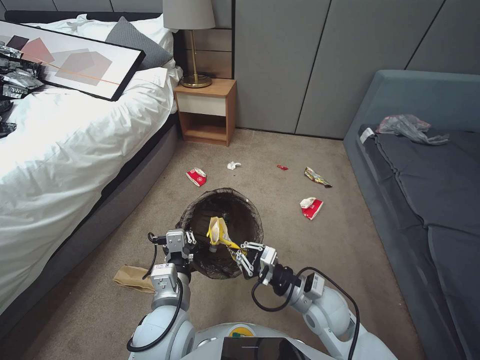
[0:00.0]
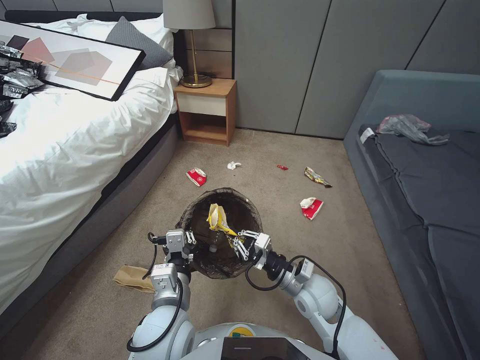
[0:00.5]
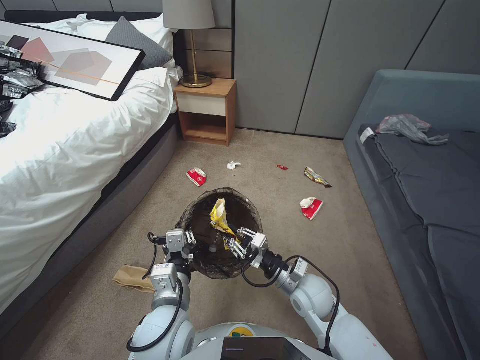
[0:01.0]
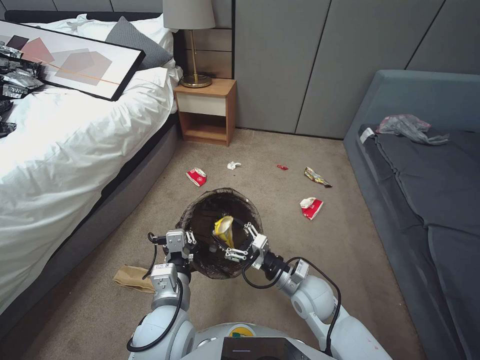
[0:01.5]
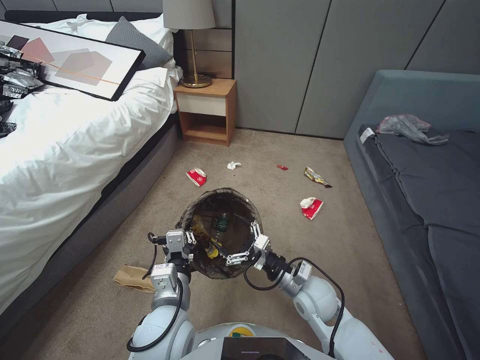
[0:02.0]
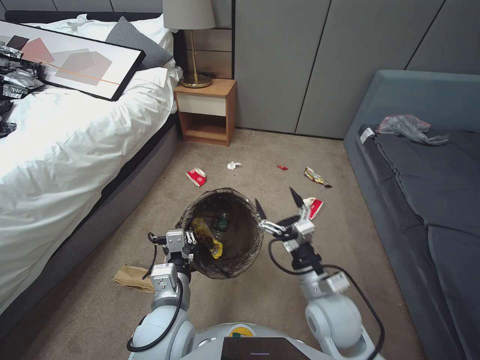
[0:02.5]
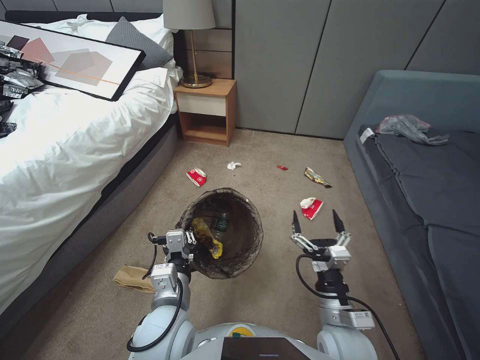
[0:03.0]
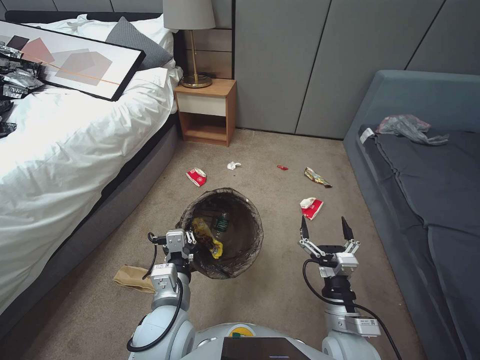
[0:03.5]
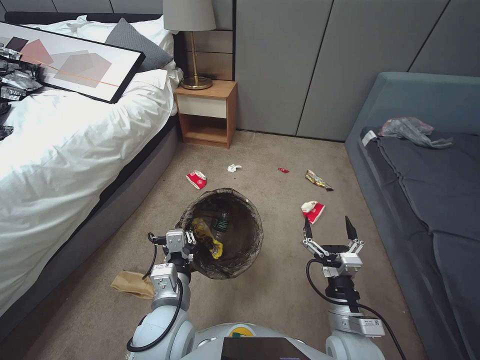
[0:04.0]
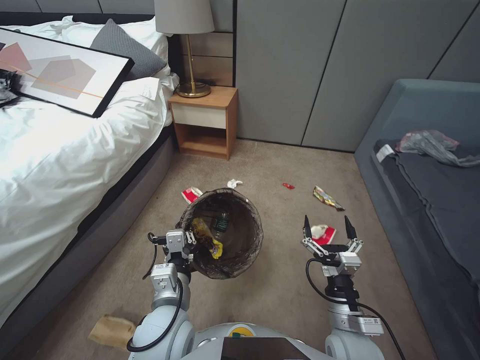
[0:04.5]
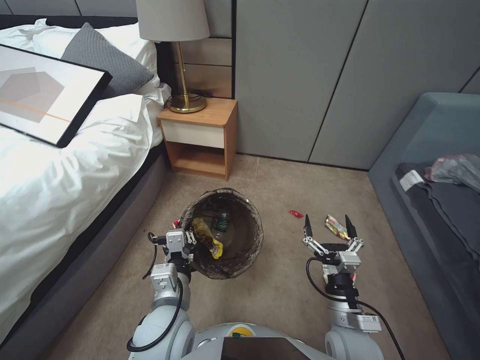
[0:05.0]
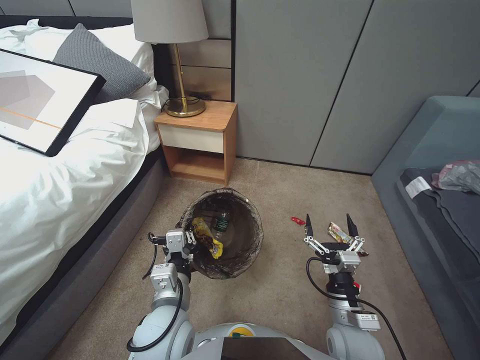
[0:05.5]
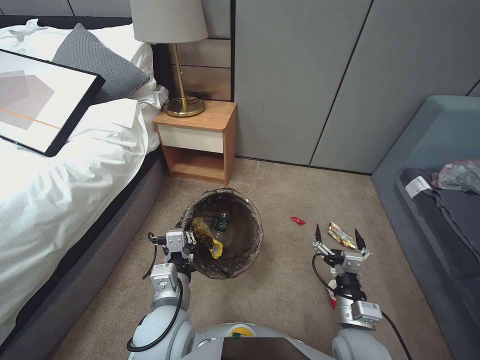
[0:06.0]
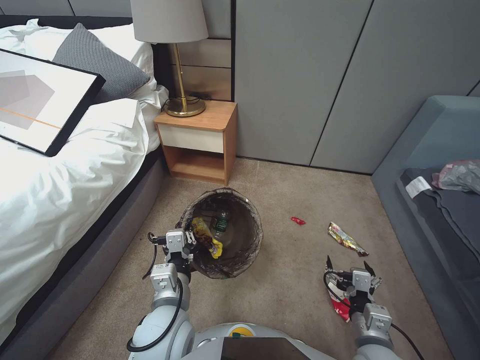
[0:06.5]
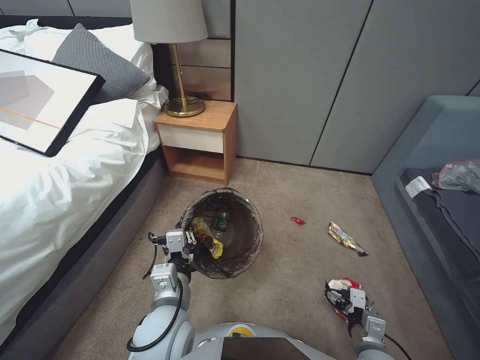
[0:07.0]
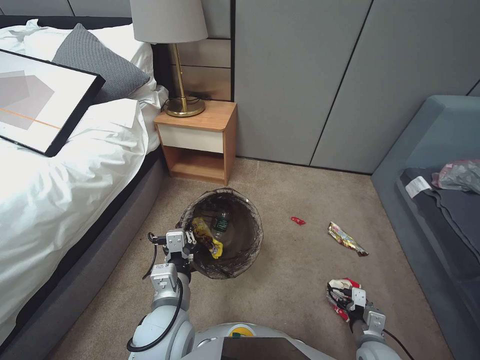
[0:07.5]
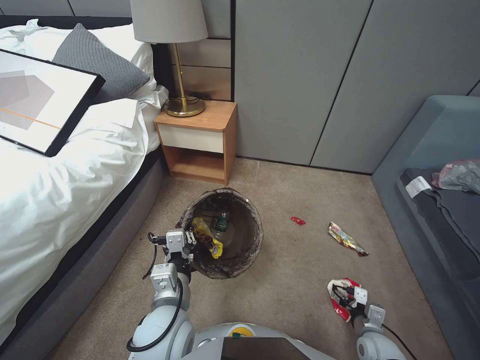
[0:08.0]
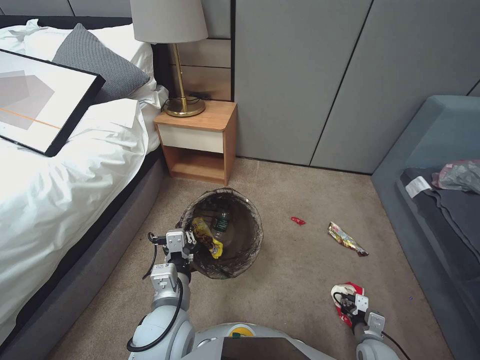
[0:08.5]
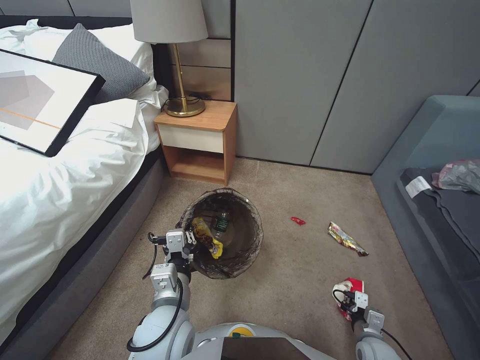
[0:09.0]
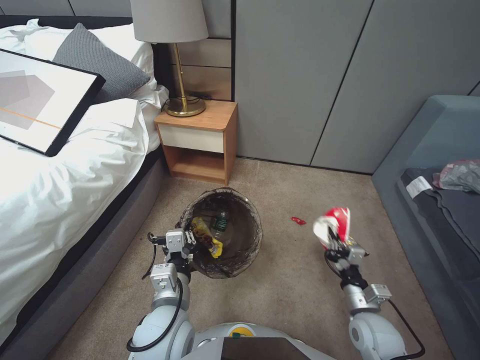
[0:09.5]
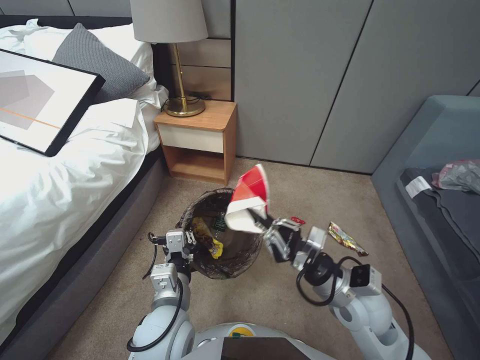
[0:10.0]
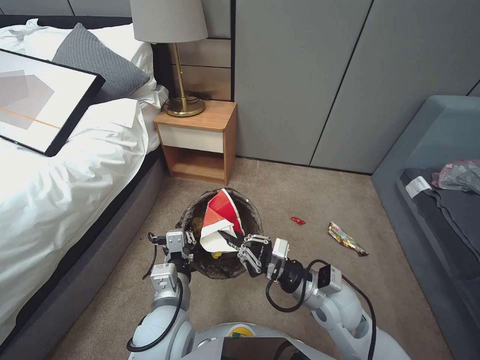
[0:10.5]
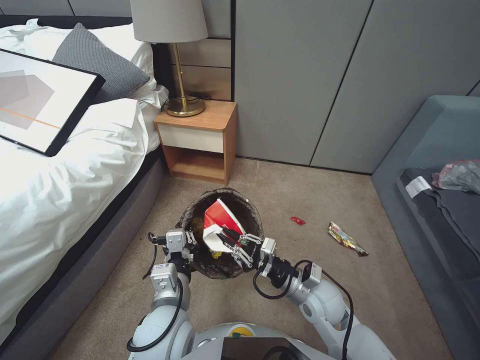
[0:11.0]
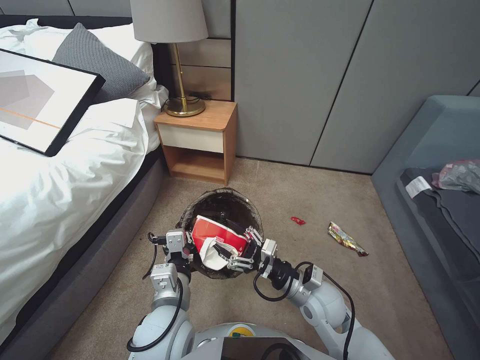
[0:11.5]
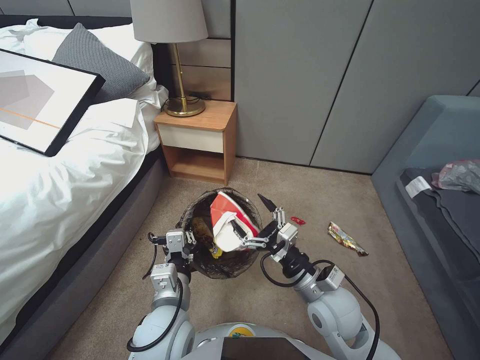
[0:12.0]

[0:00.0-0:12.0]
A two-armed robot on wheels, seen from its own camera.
Task of the whole recording: Pick up the trash bin, then pick up the garbage from the floor and place it into the trash bin.
0:00.0 to 0:02.0: The right gripper shifts by about 5 cm, and opens its fingers.
0:02.0 to 0:04.0: The right gripper moves backward, roughly 10 cm.
0:06.0 to 0:08.0: The right gripper shifts some 20 cm downward and to the right.
0:08.0 to 0:10.0: The right gripper moves upward and to the left, roughly 25 cm, and closes its fingers.
0:10.0 to 0:12.0: The right gripper is displaced to the left by some 5 cm, and opens up.

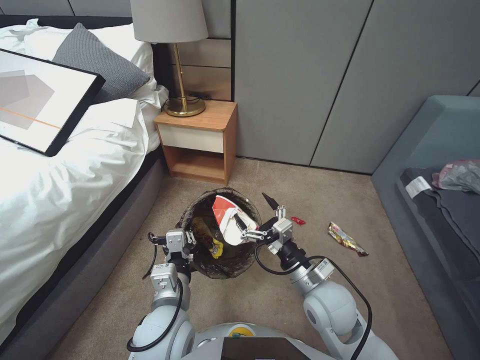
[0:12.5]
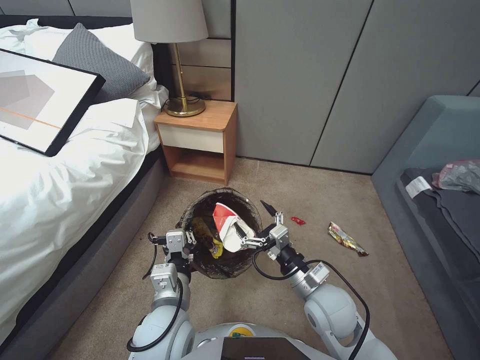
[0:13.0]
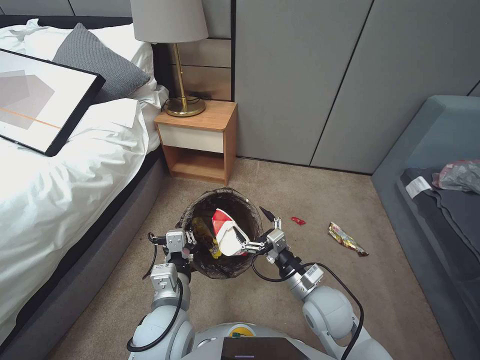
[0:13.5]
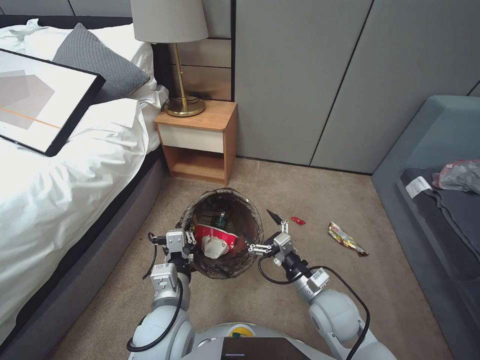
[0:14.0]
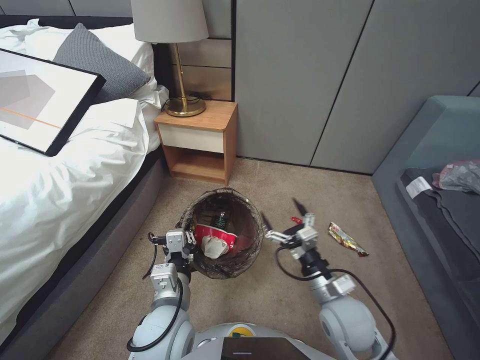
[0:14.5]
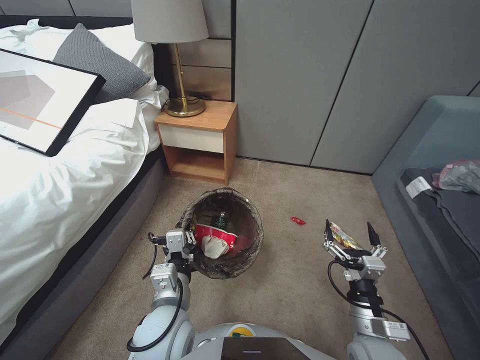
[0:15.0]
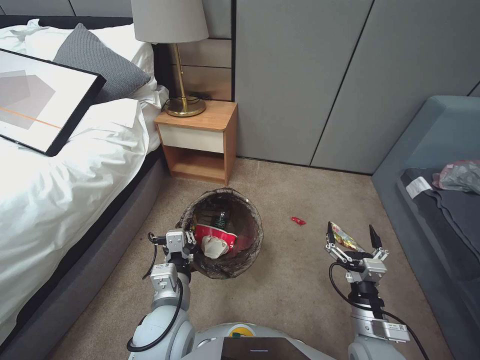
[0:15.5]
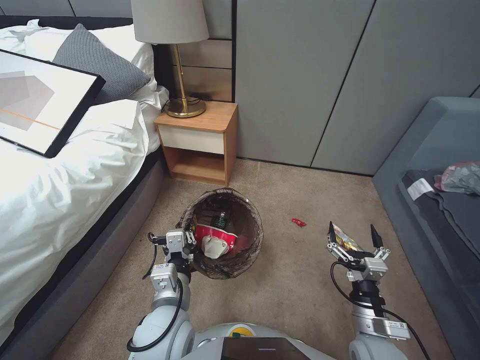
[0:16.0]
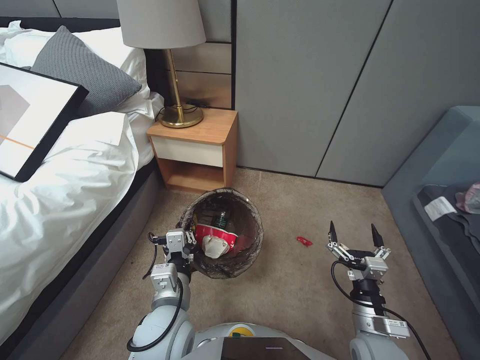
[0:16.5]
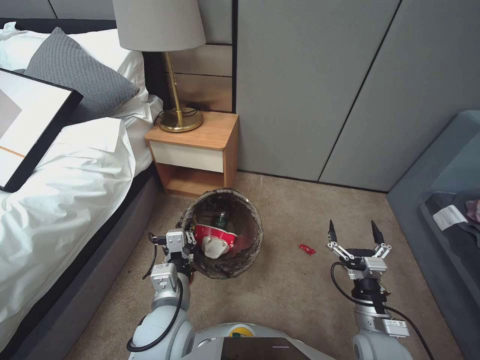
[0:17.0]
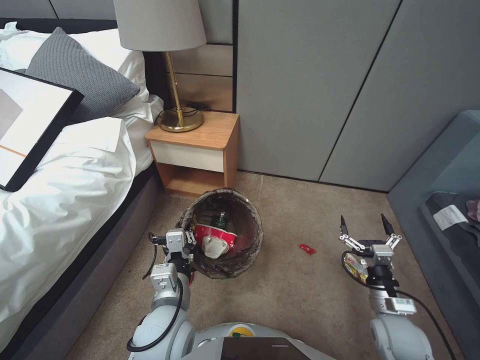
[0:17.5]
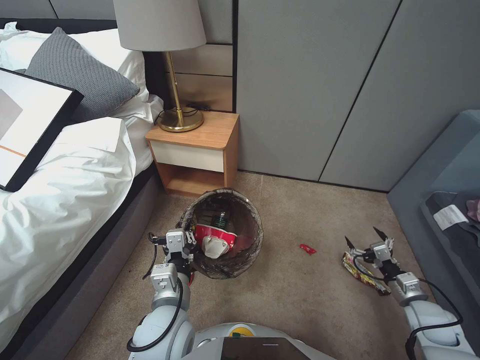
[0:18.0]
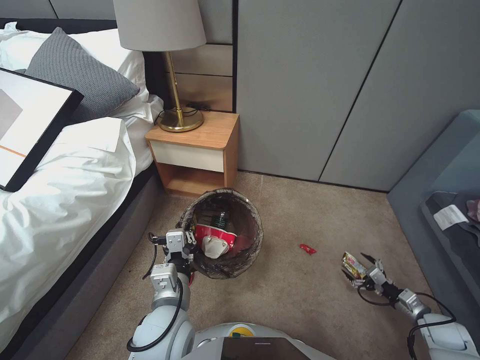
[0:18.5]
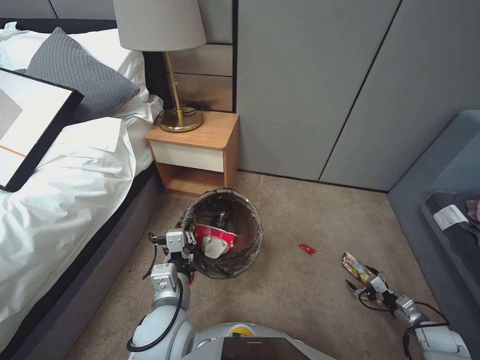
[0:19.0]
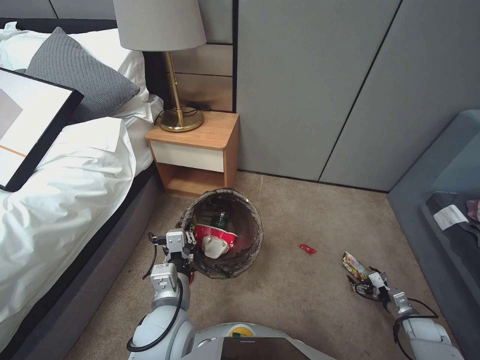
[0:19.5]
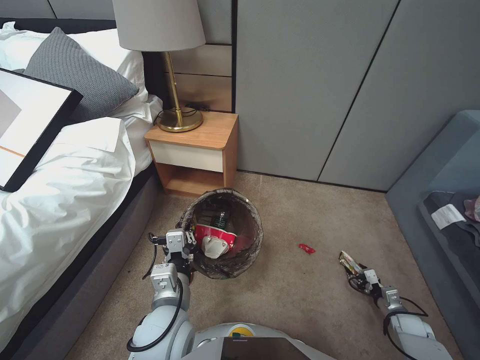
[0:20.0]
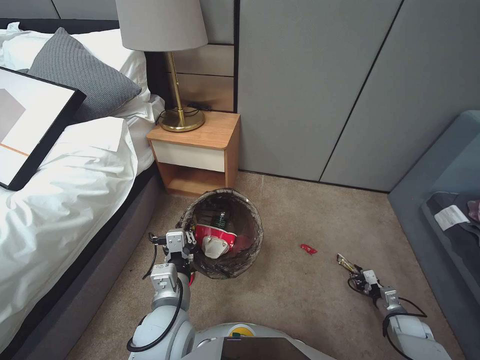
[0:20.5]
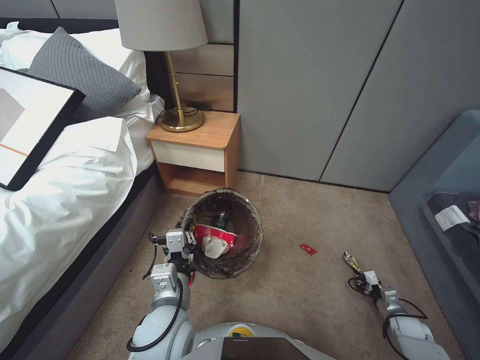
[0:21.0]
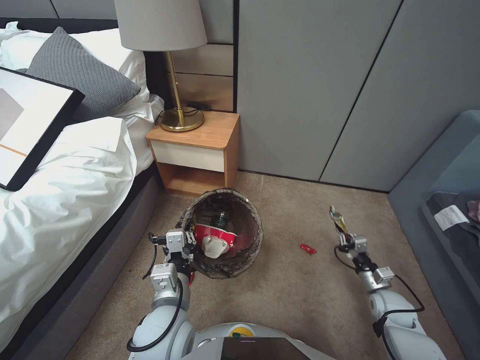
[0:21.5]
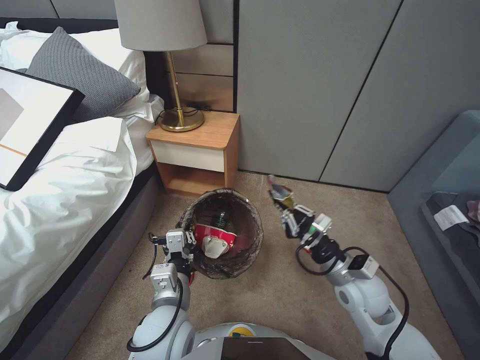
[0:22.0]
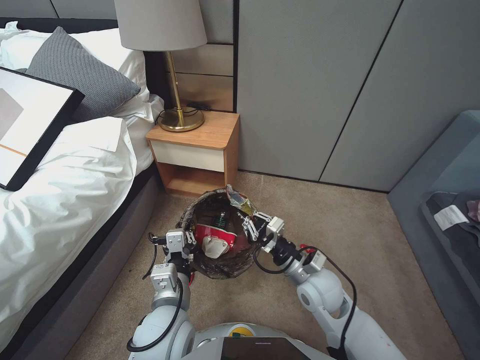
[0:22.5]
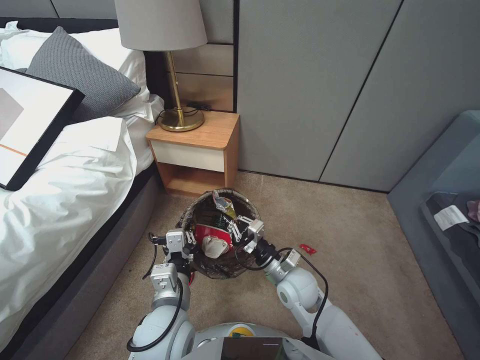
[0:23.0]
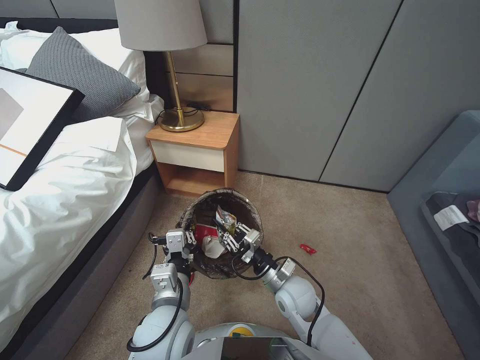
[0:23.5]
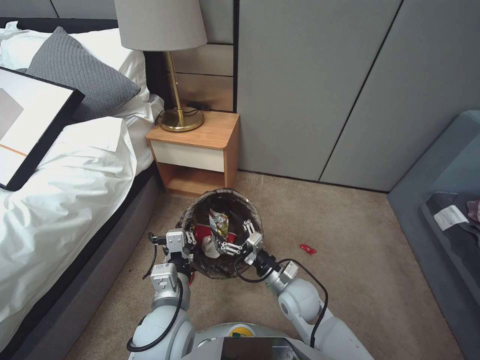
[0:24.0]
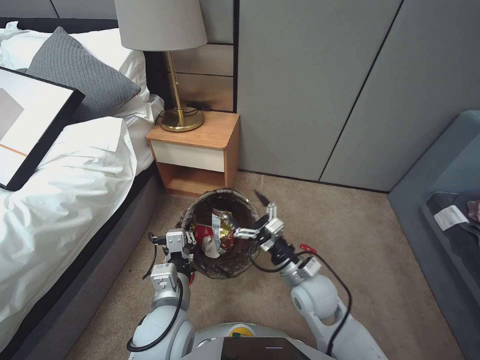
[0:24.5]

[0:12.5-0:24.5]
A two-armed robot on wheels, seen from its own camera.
Task of the whole recording: Pick up the trash bin, then pick up the garbage from the floor and place it into the trash bin.
0:12.5 to 0:14.5: The right gripper changes place by roughly 5 cm.
0:14.5 to 0:16.5: The right gripper is displaced to the right and backward by roughly 10 cm.
0:16.5 to 0:18.5: The right gripper goes some 25 cm to the right.
0:18.5 to 0:20.5: The right gripper travels downward by roughly 10 cm, and closes its fingers.
0:20.5 to 0:22.5: The right gripper travels to the left and upward by approximately 40 cm.
0:22.5 to 0:24.5: The right gripper heads to the left and downward, covering approximately 10 cm, and opens its fingers.

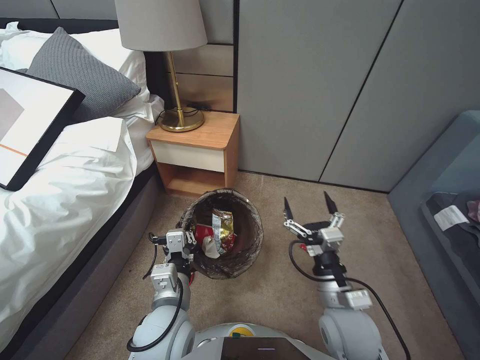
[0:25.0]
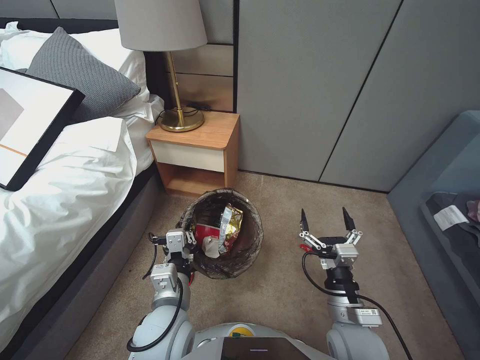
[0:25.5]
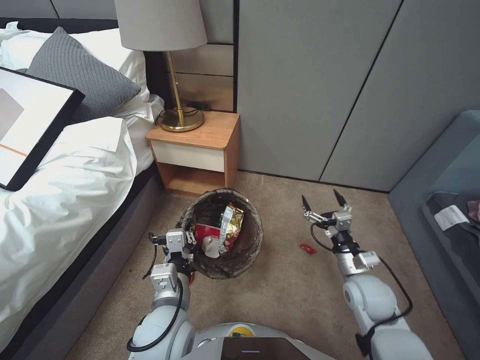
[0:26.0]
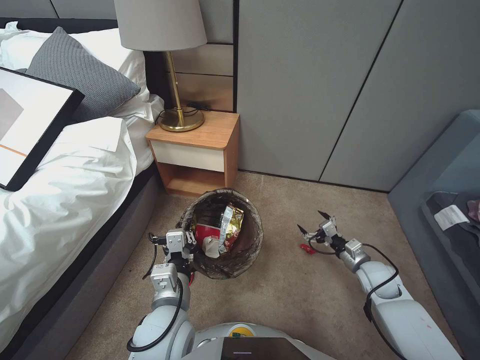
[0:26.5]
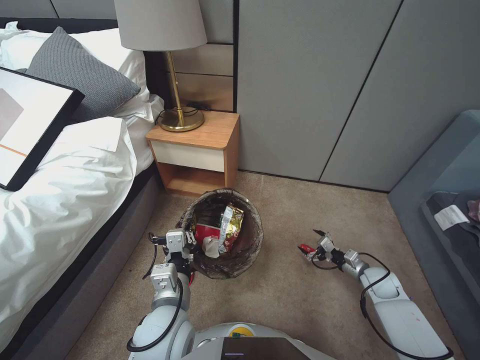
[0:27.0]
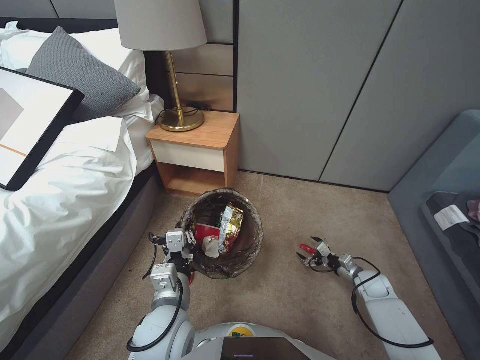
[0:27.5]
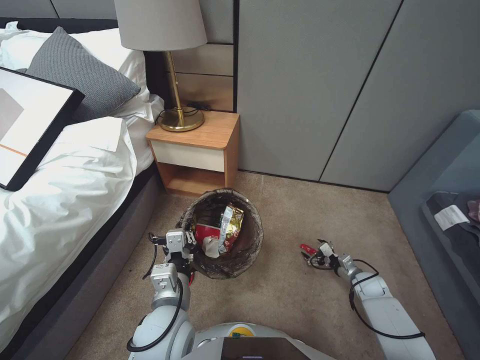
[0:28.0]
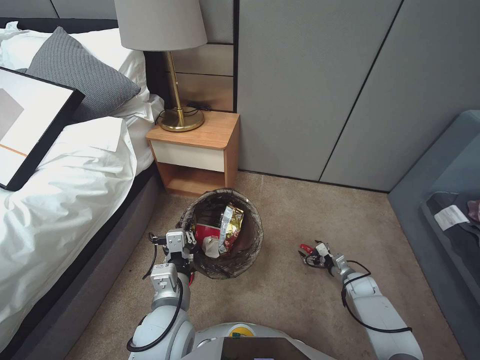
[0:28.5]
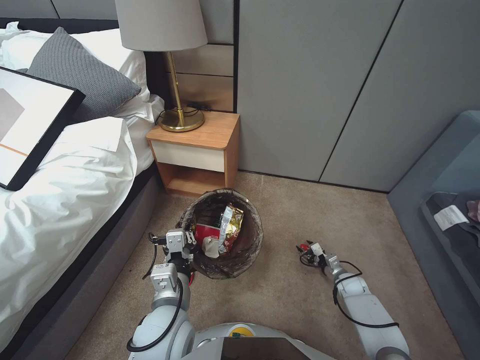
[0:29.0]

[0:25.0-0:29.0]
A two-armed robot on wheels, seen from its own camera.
Task of the whole recording: Pick up the trash bin, then pick up the garbage from the floor and place it into the trash bin.
0:25.0 to 0:27.0: The right gripper moves to the right, downward and forward, roughly 30 cm.
0:27.0 to 0:29.0: The right gripper shifts roughly 10 cm downward, and closes up.
